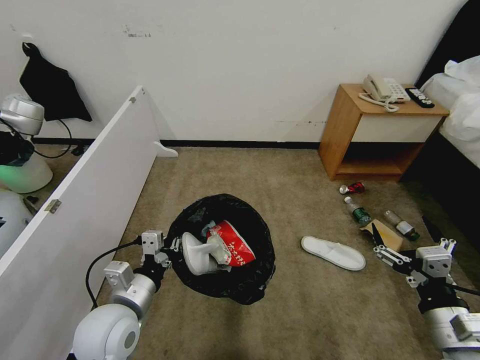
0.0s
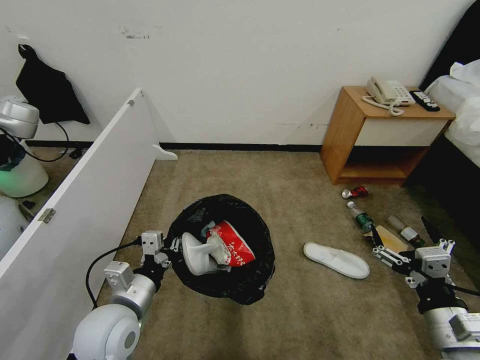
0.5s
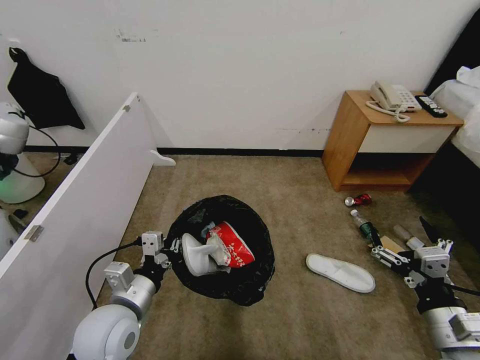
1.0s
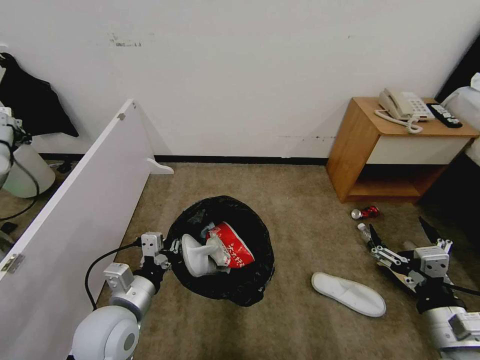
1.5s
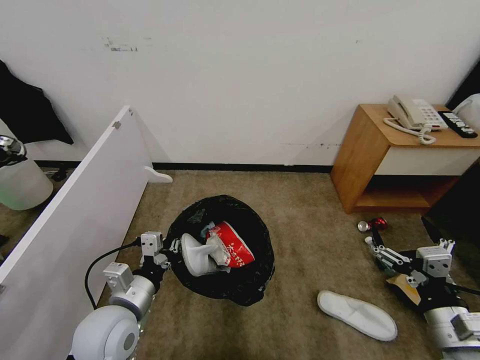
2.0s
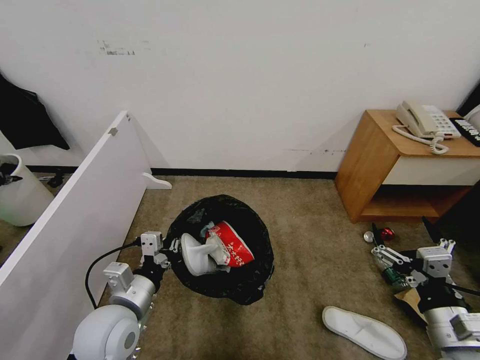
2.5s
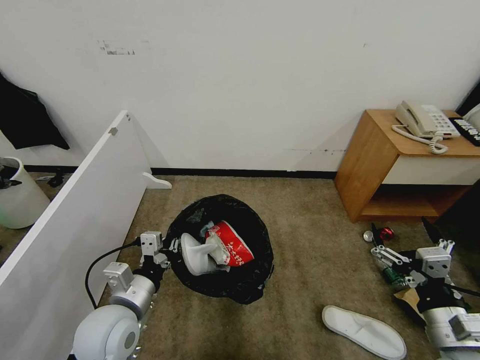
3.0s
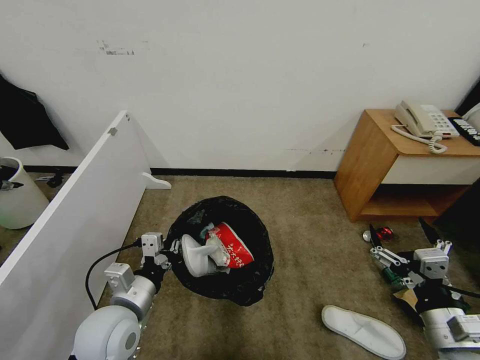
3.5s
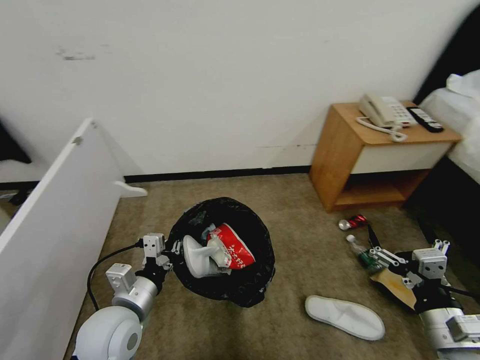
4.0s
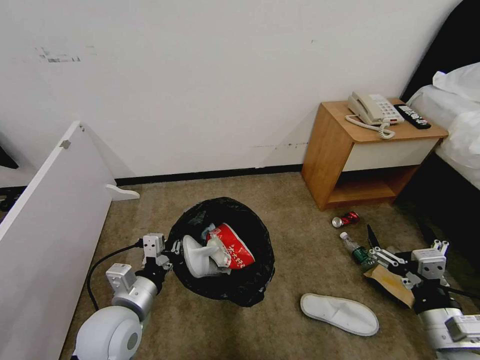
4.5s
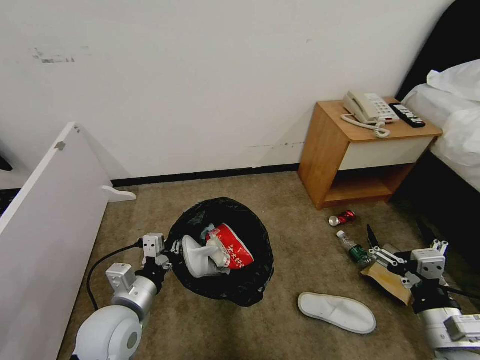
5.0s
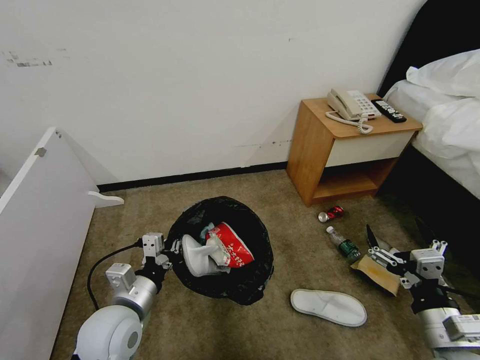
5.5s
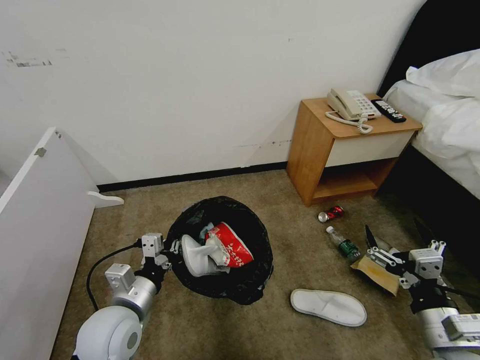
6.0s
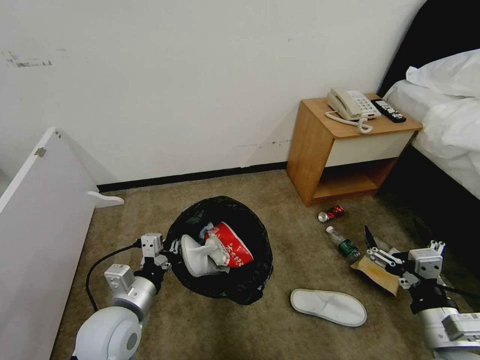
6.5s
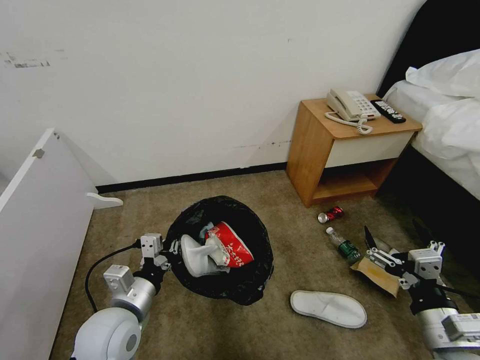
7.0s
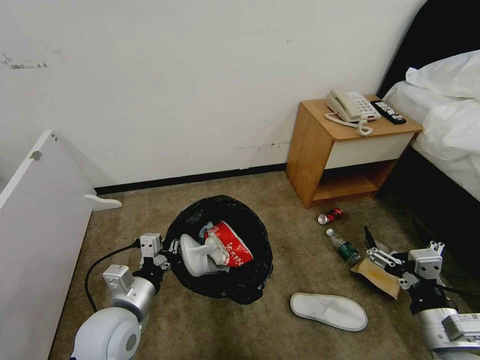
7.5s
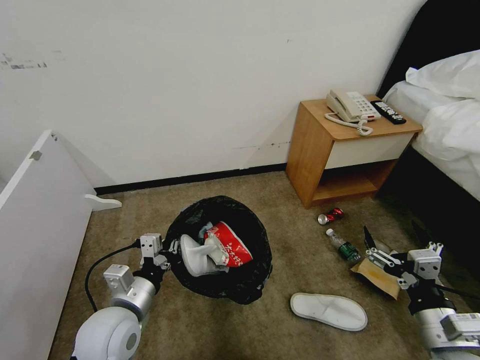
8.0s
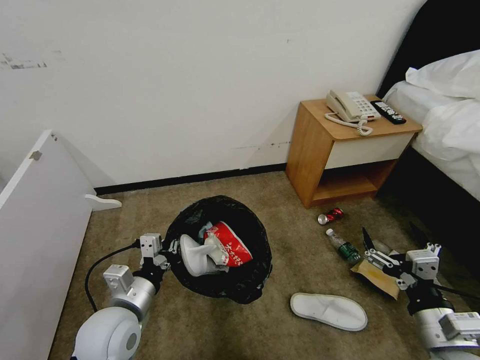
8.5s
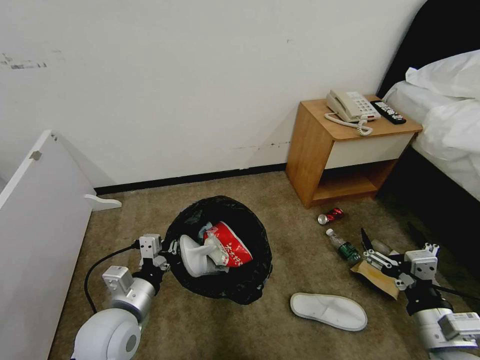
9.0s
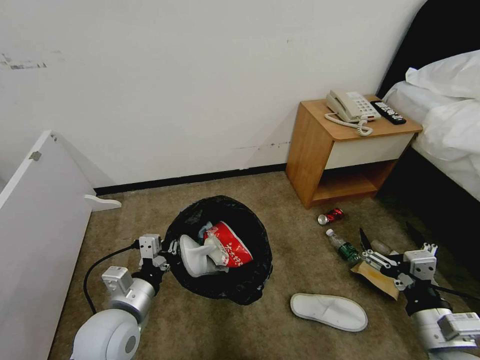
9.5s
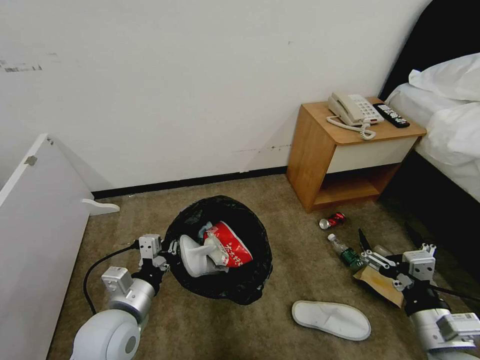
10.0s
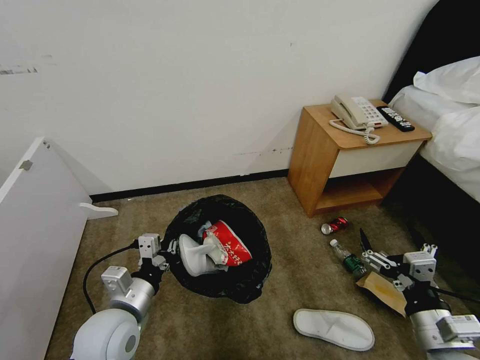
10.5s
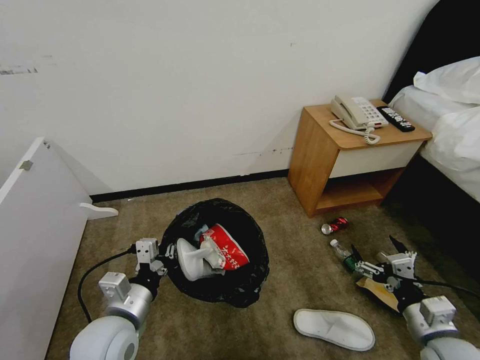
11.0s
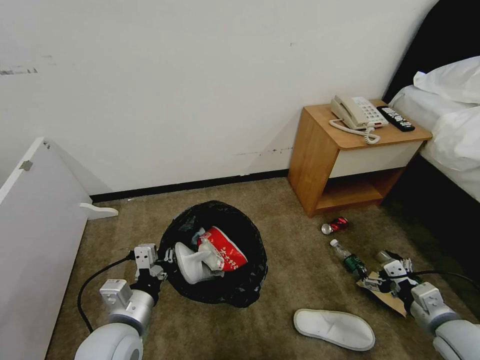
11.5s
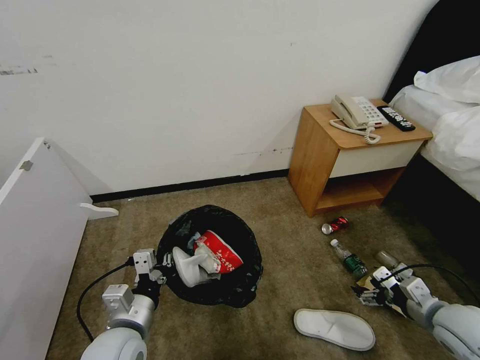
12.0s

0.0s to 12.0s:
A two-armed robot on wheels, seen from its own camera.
Task of the whole recording: Pick up the trash bin, then pick up the garbage from the floor and place it into the trash bin.
6.0s to 10.0s: Both grippers stay put.
10.0s to 12.0s: The right gripper travels to the right and forward by roughly 10 cm.

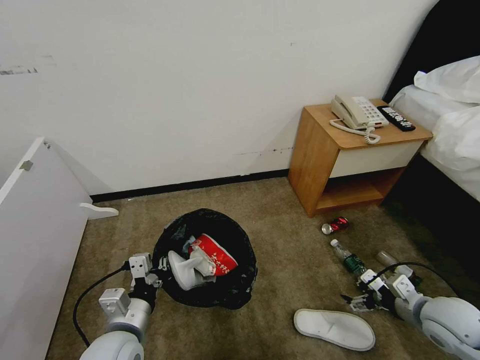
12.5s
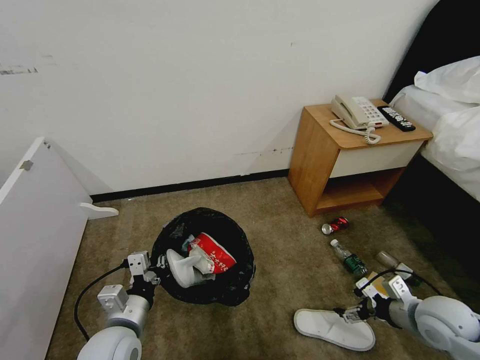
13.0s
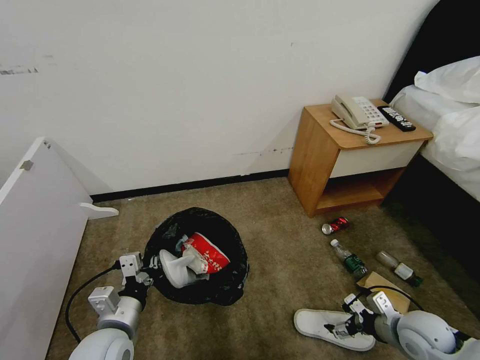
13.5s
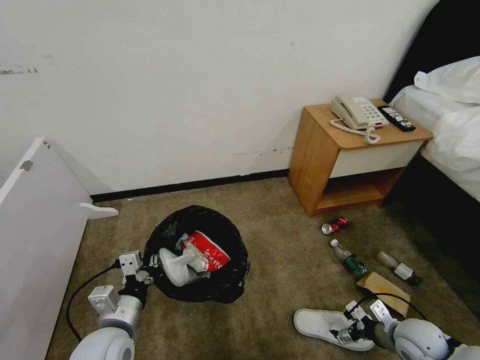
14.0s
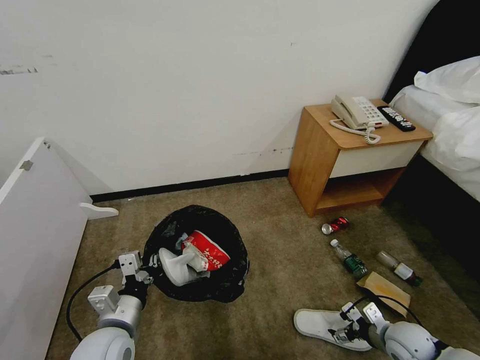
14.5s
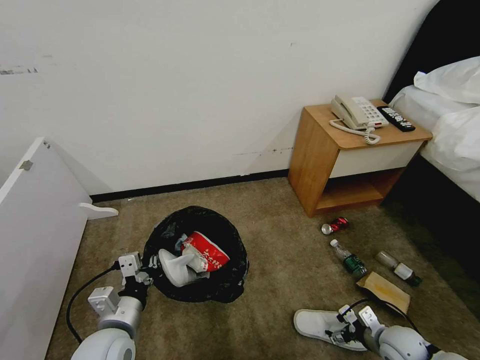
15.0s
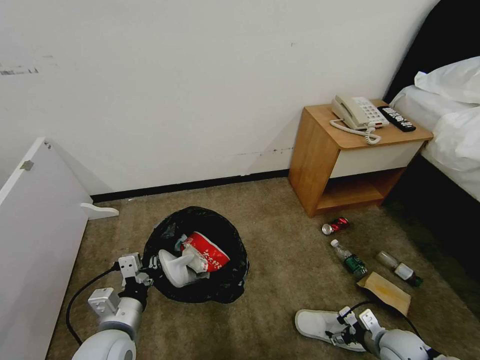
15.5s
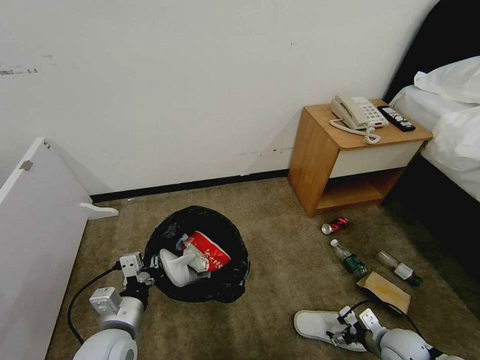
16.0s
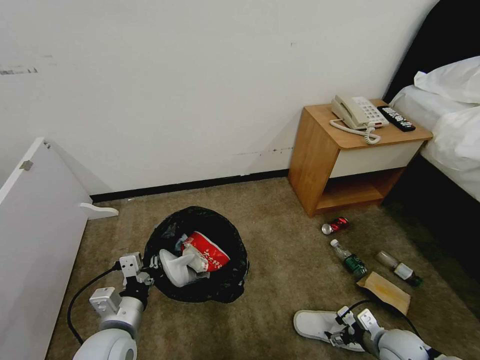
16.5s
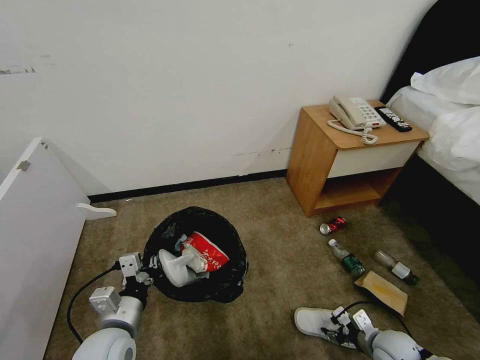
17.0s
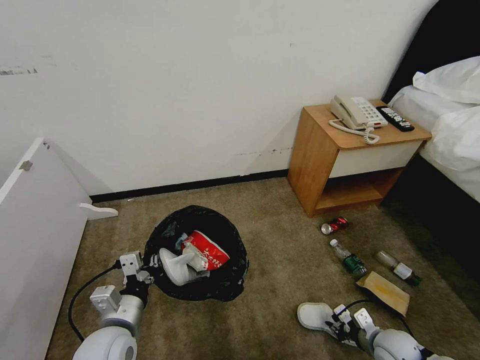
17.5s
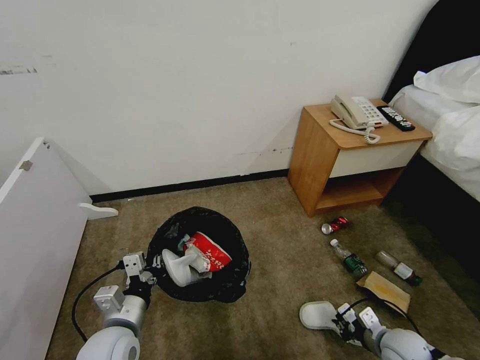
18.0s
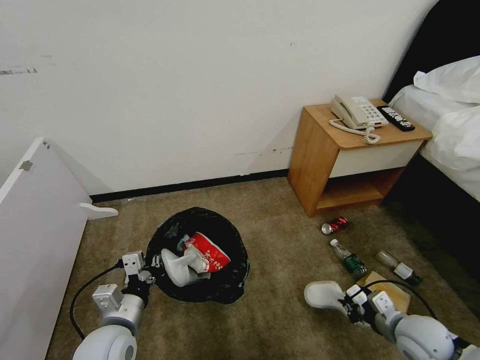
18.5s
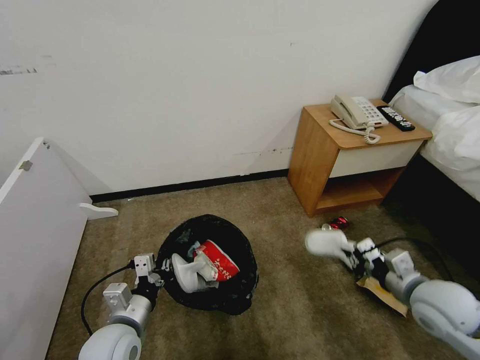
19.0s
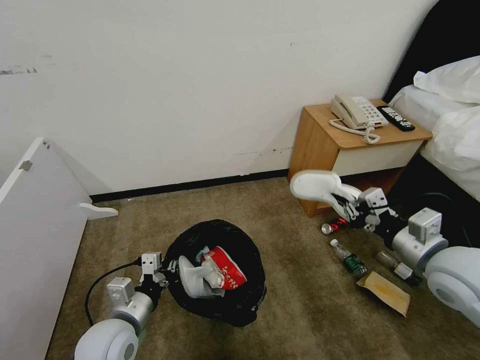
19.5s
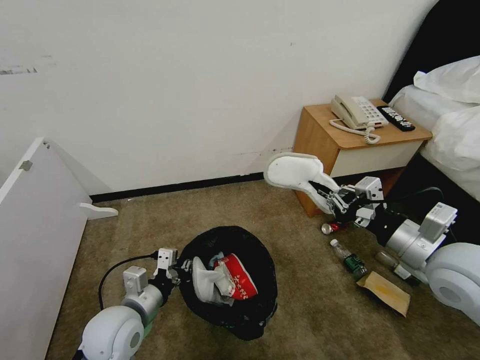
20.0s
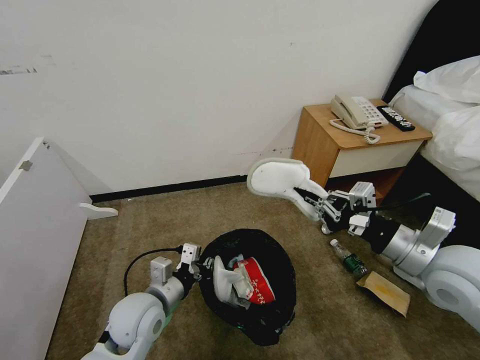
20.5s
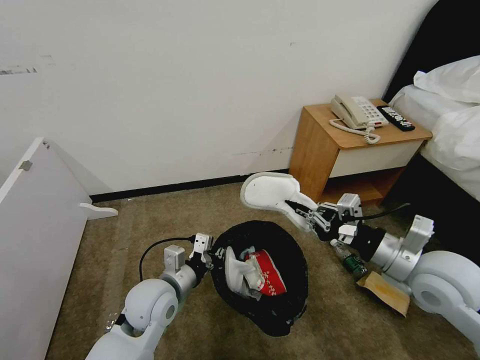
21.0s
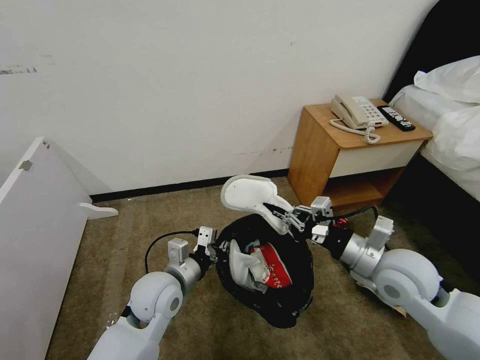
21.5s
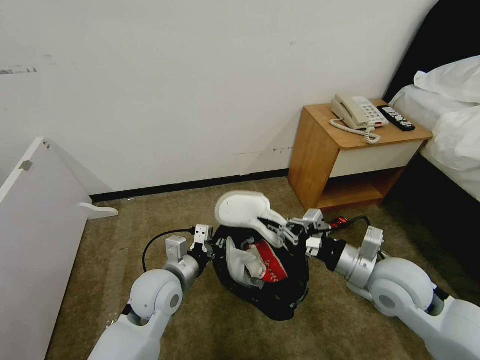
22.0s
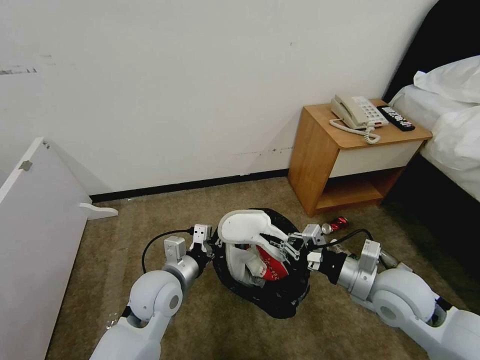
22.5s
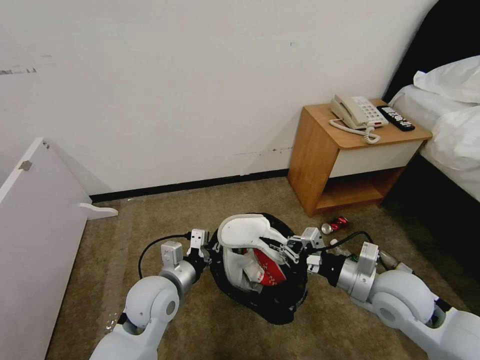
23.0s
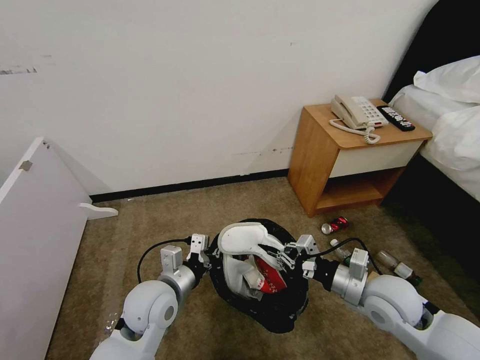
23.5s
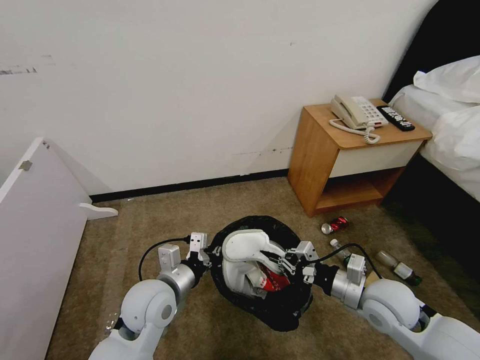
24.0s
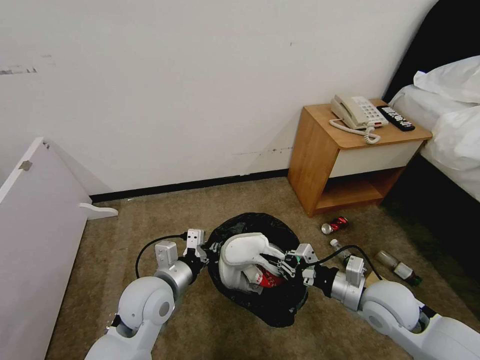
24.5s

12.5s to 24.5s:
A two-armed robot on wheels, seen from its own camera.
Task of the whole recording: Pick up the trash bin, then pick up the garbage from the floor and place it into the trash bin.
12.5s to 14.5s: The right gripper travels downward by about 10 cm.
14.5s to 16.5s: The grippers move only a little.
16.5s to 18.5s: The right gripper moves upward, roughly 10 cm, and closes.
18.5s to 20.5s: The right gripper is displaced upward by approximately 25 cm. The left gripper ends up about 5 cm from where it was.
20.5s to 22.5s: The left gripper shifts by approximately 5 cm; the right gripper goes some 10 cm downward.
22.5s to 24.5s: The right gripper shifts about 5 cm downward.

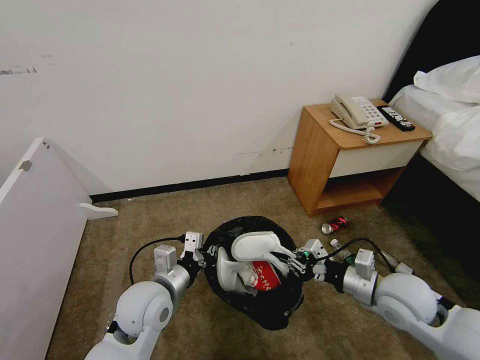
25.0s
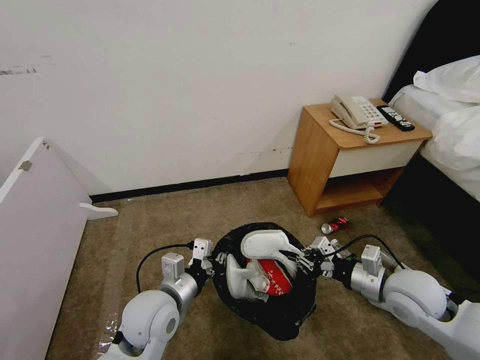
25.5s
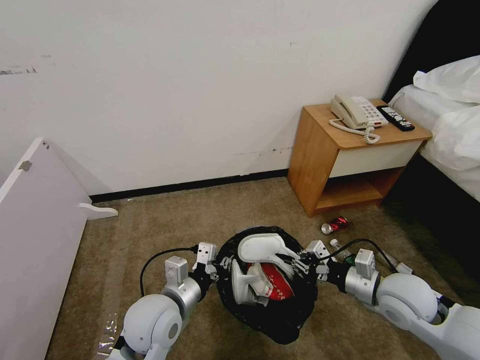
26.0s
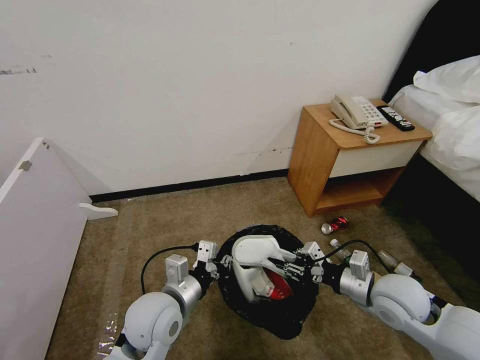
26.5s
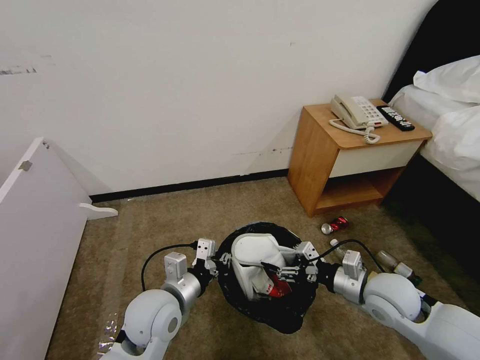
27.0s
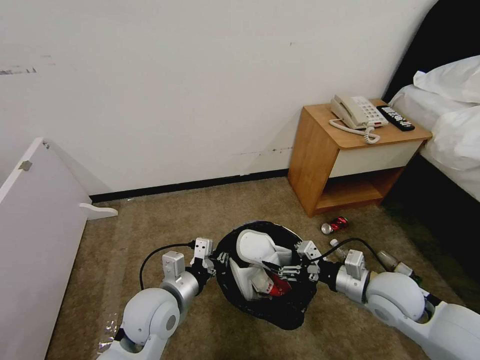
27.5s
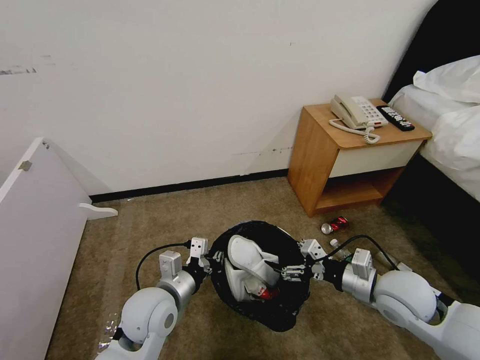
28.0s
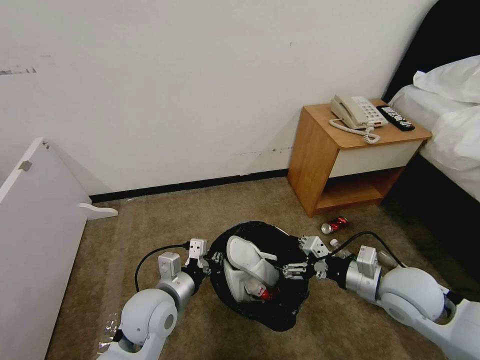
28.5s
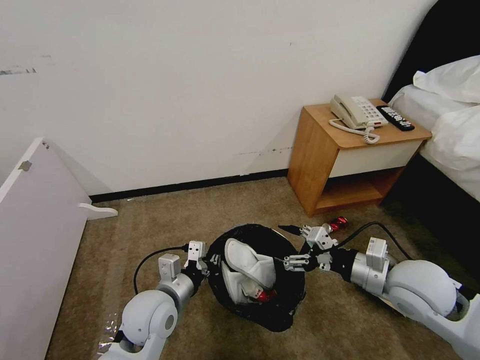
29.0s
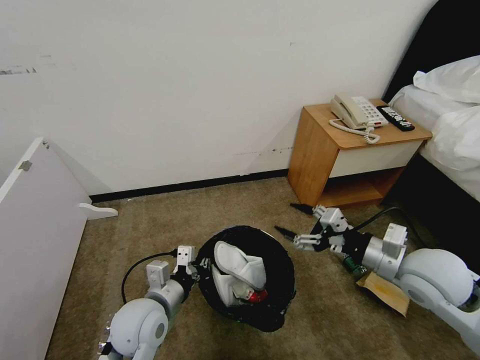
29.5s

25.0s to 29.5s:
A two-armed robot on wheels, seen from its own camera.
Task of the whole recording: Pick up the trash bin, then pick up the garbage from the floor and place it into the trash bin.
25.0s to 27.0s: The right gripper opens its fingers.
27.0s to 29.5s: The right gripper is displaced upward by about 10 cm.
